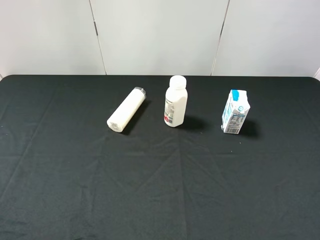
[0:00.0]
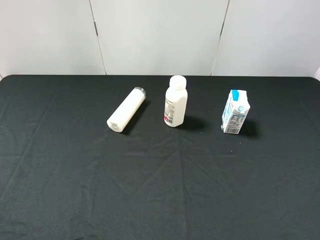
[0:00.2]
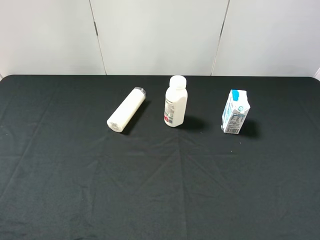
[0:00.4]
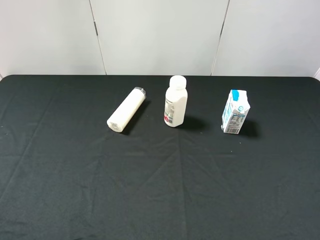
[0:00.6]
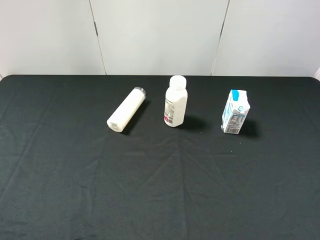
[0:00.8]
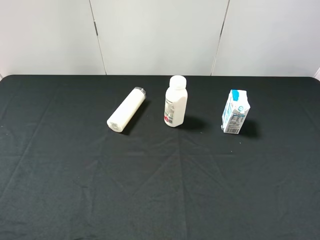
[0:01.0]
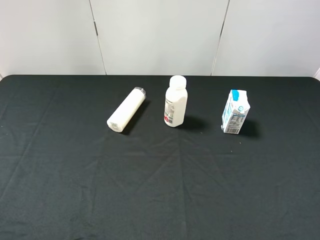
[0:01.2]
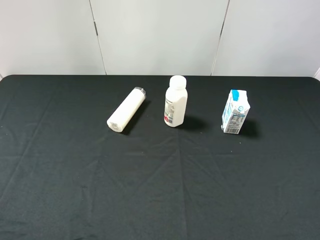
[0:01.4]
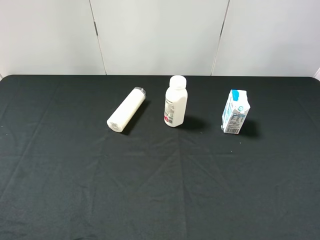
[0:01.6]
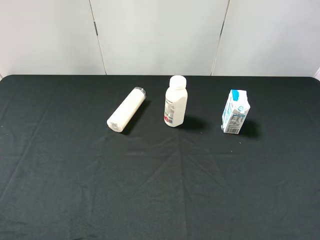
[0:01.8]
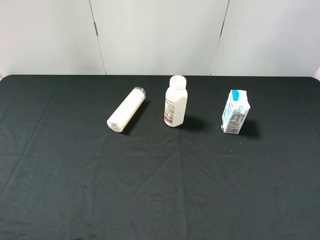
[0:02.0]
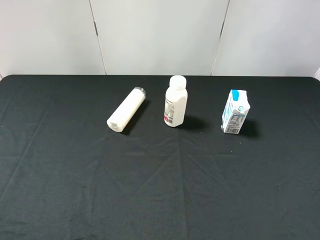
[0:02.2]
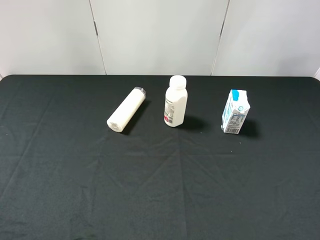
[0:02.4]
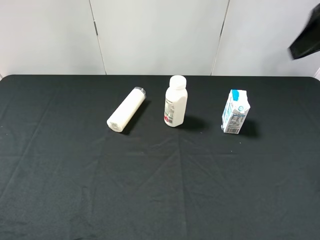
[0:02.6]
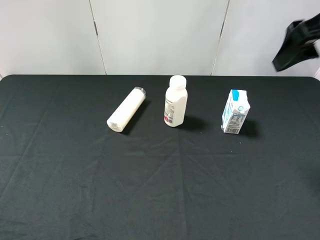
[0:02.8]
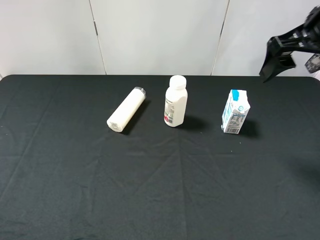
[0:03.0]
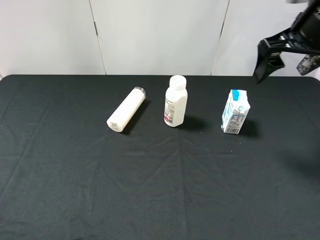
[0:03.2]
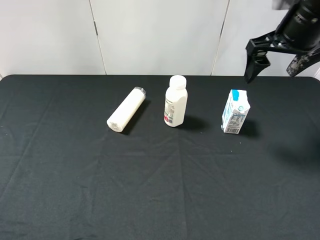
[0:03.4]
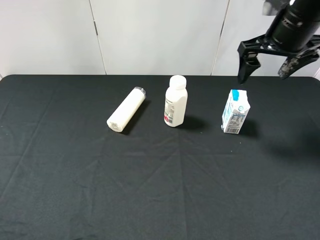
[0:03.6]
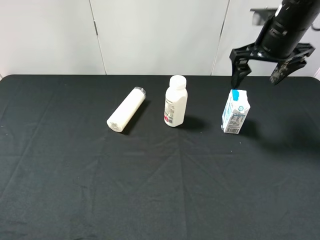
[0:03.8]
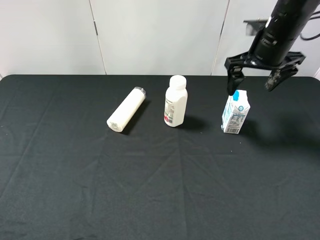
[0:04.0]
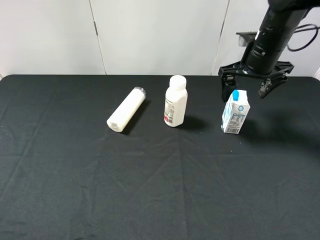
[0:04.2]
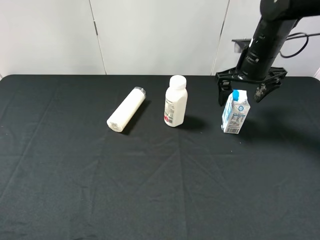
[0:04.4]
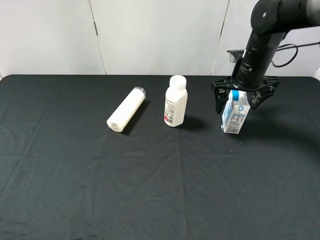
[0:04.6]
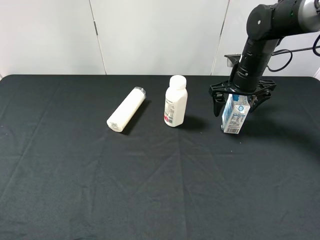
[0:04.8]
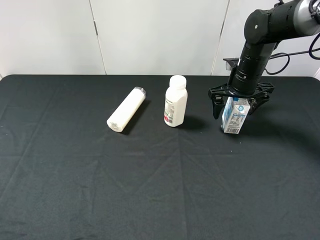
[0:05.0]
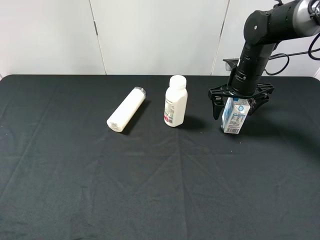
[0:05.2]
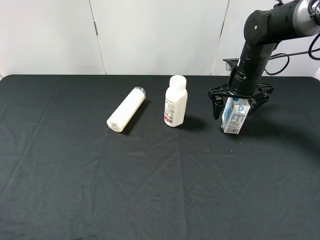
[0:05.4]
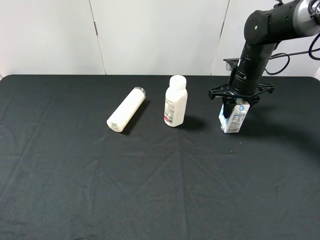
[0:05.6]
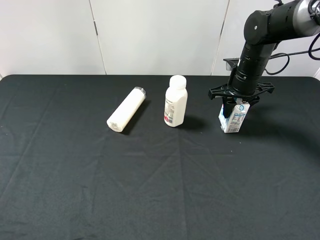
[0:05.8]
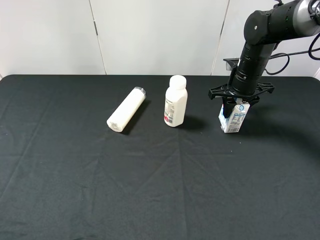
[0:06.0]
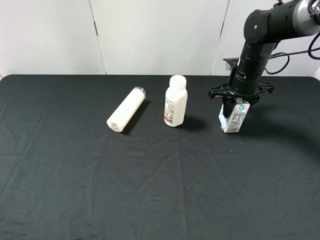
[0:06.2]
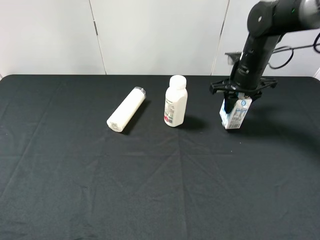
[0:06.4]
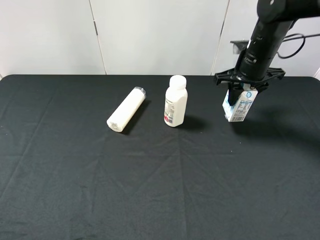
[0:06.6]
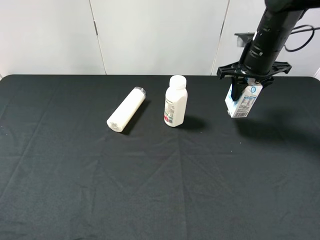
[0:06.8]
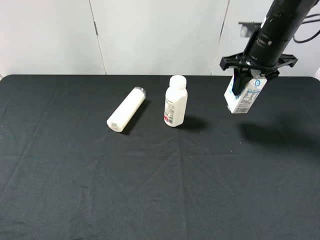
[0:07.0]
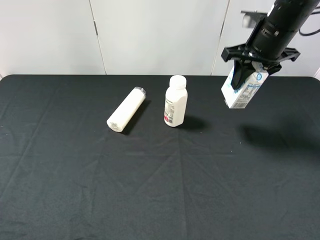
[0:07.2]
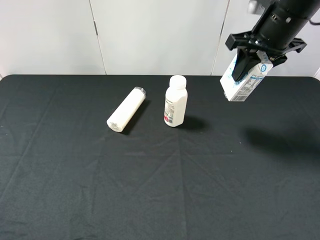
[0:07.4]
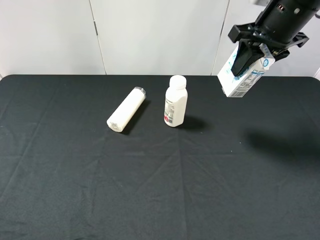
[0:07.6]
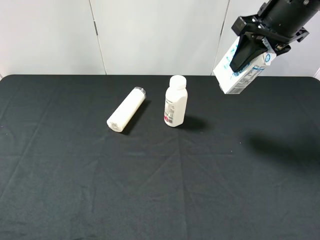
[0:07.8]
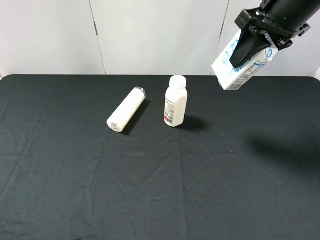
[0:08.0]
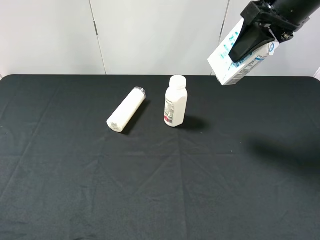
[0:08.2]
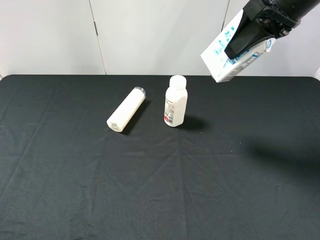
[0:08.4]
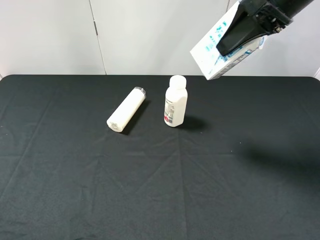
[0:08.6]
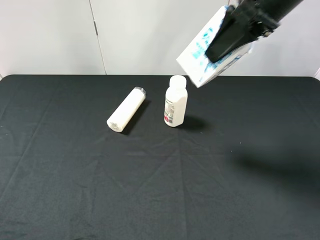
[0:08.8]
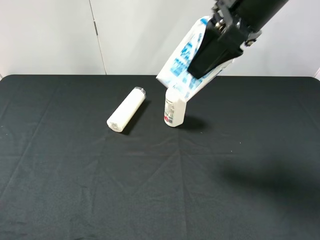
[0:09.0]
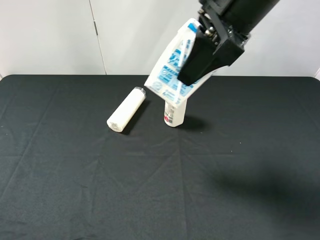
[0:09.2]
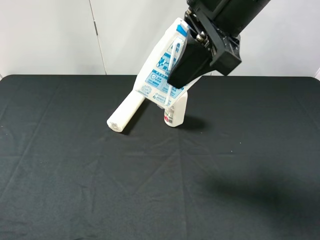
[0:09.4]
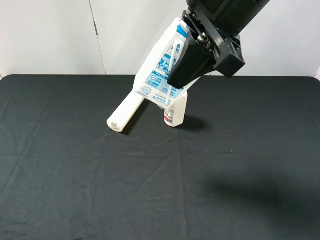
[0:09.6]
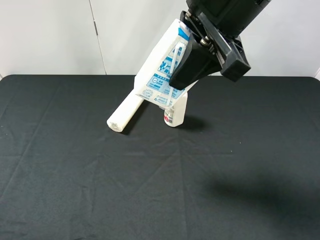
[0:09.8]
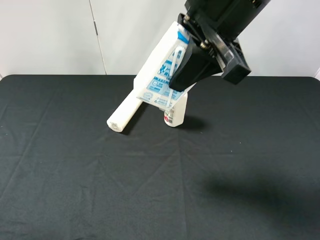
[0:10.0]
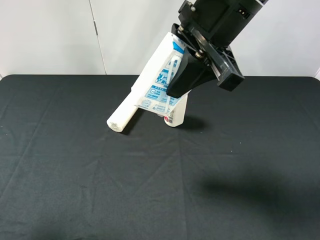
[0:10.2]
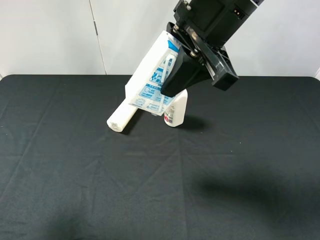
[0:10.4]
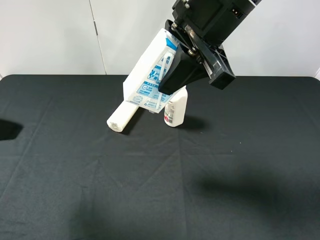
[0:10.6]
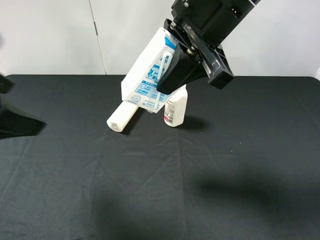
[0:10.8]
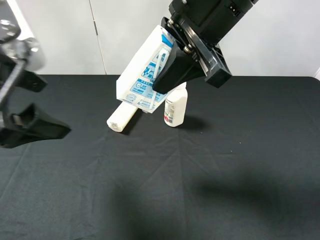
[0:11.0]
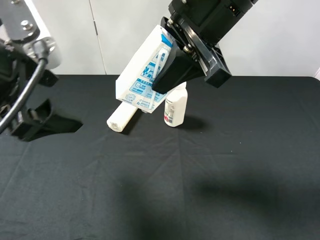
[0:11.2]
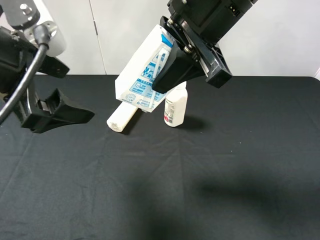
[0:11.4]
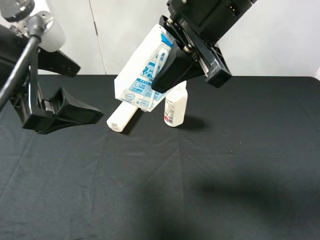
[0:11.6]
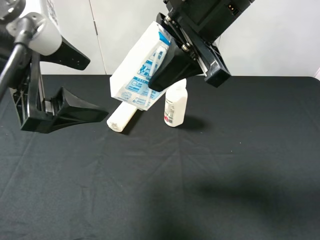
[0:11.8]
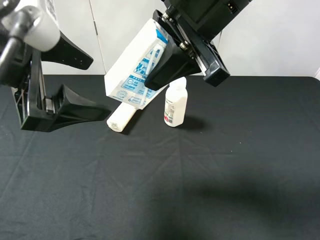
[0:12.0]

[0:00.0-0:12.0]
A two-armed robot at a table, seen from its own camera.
Task of the whole recording: use the right gripper to pick up the item and transfer it from the right gripper to the left gripper.
Step, 0:00.0 to 0:05.8: Use the right gripper to grab the milk on the right side of the table.
0:01.6 to 0:03.0: The right gripper shifts approximately 25 cm forward.
0:03.0 to 0:04.4: The right gripper goes roughly 15 cm downward and forward.
0:04.4 to 0:06.0: The right gripper ends up roughly 5 cm from where it was, and closes up.
0:06.0 to 0:07.6: The right gripper goes approximately 15 cm upward and backward.
0:07.6 to 0:09.0: The right gripper moves to the left and backward, some 10 cm.
0:09.0 to 0:10.4: The left gripper goes about 10 cm forward.
0:10.4 to 0:12.0: The left gripper is displaced to the right and forward by about 10 cm.

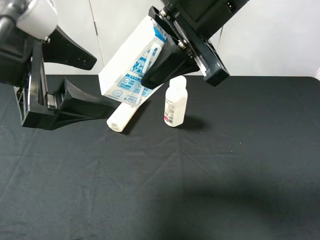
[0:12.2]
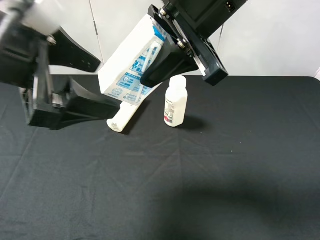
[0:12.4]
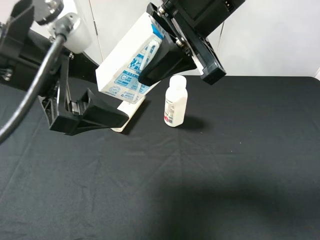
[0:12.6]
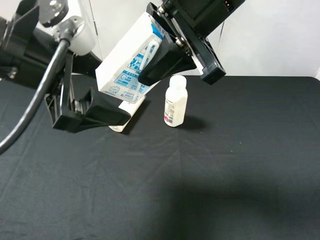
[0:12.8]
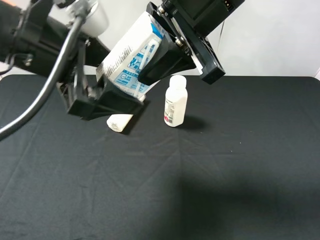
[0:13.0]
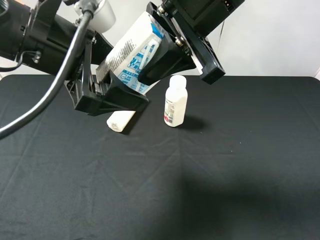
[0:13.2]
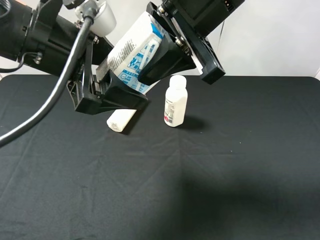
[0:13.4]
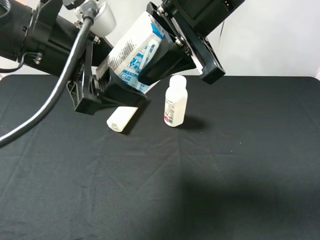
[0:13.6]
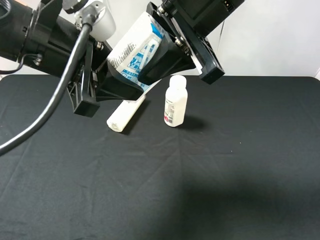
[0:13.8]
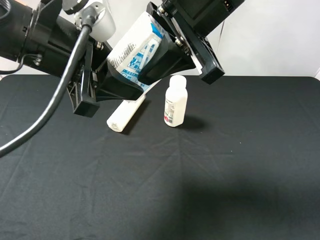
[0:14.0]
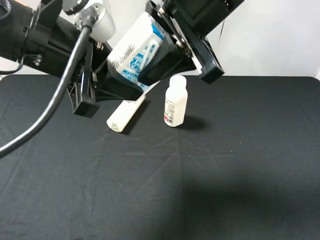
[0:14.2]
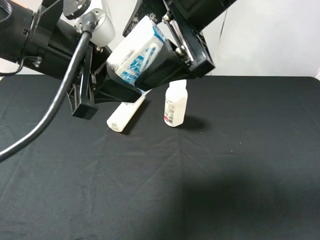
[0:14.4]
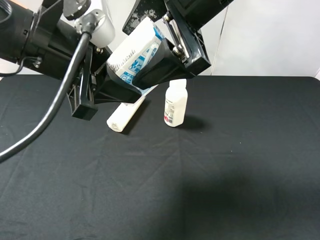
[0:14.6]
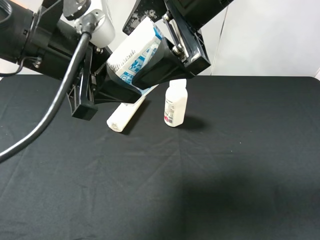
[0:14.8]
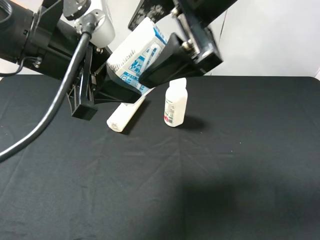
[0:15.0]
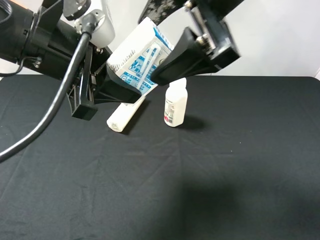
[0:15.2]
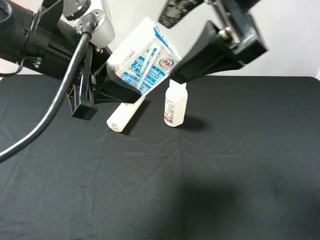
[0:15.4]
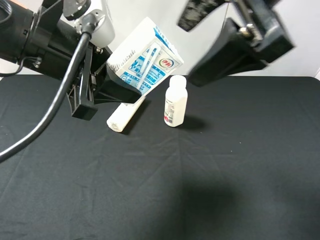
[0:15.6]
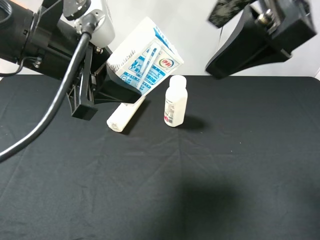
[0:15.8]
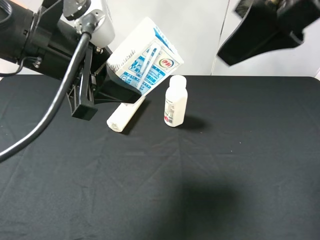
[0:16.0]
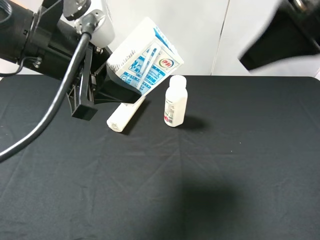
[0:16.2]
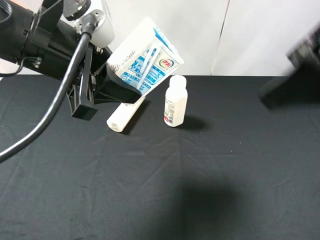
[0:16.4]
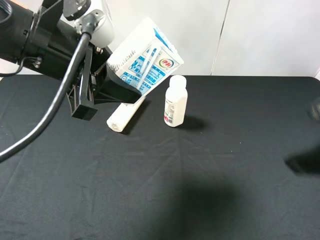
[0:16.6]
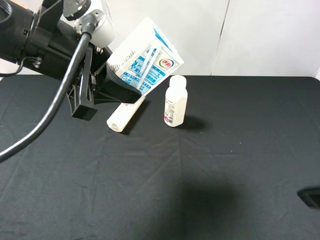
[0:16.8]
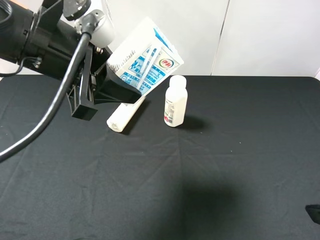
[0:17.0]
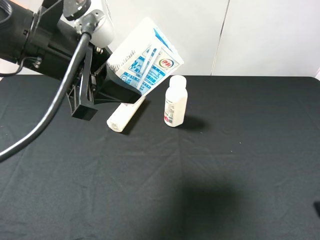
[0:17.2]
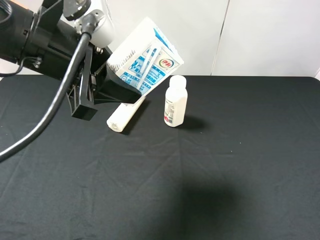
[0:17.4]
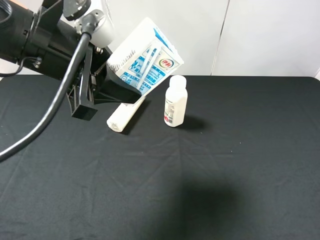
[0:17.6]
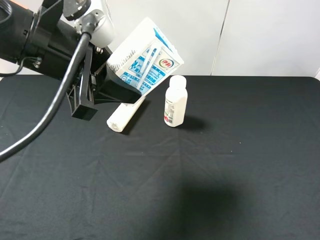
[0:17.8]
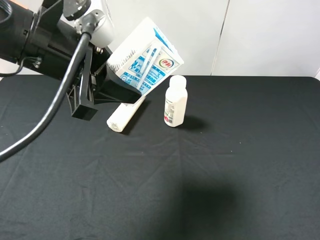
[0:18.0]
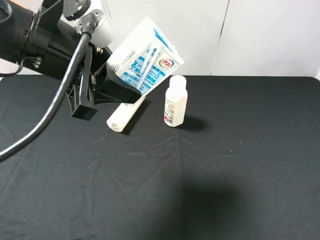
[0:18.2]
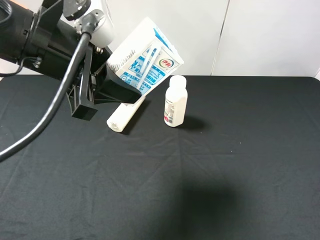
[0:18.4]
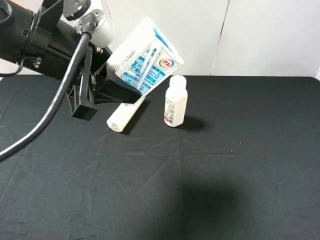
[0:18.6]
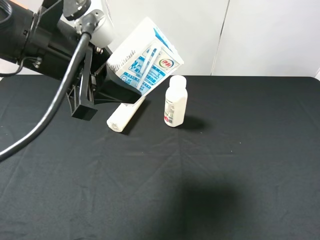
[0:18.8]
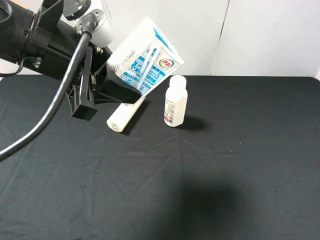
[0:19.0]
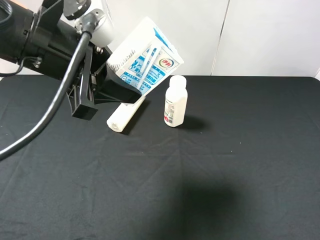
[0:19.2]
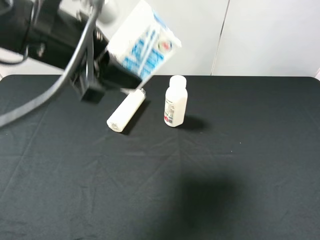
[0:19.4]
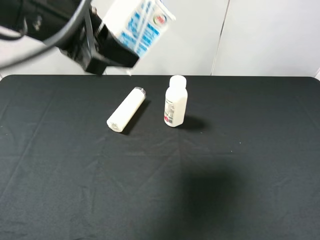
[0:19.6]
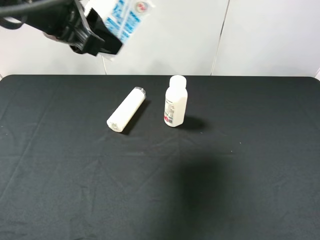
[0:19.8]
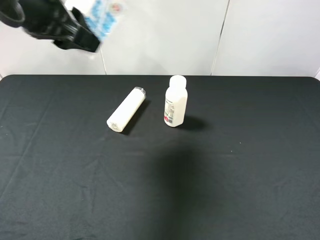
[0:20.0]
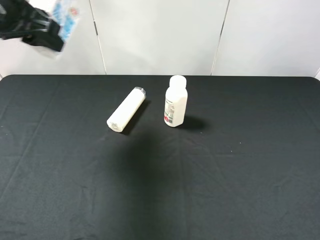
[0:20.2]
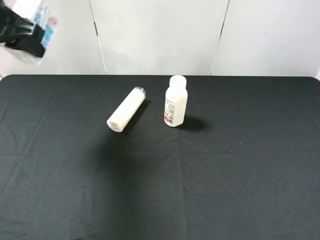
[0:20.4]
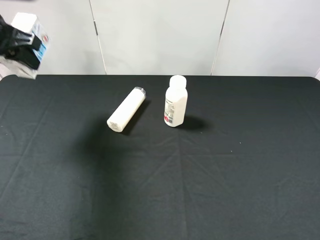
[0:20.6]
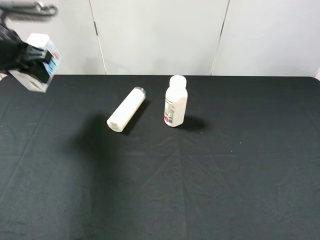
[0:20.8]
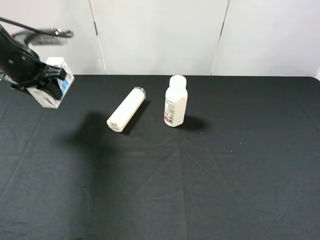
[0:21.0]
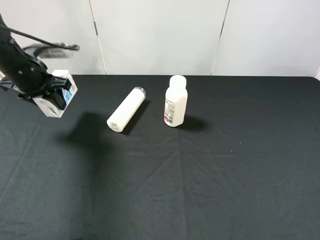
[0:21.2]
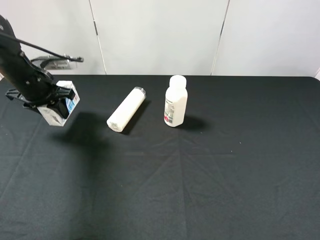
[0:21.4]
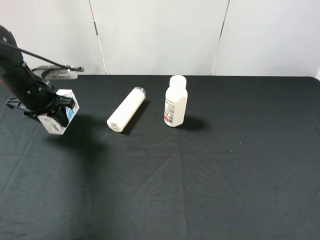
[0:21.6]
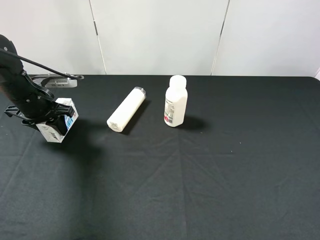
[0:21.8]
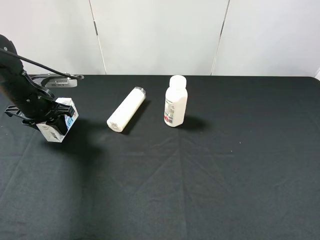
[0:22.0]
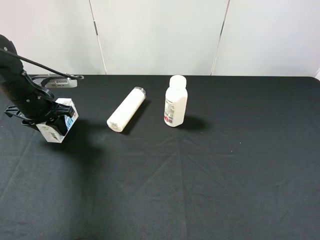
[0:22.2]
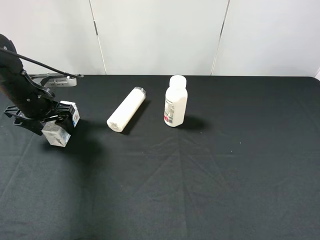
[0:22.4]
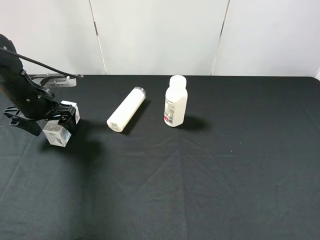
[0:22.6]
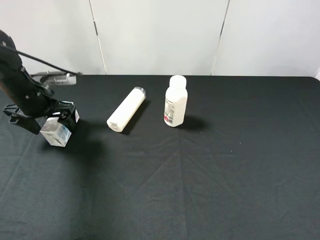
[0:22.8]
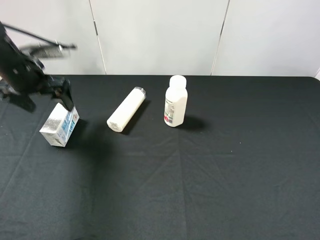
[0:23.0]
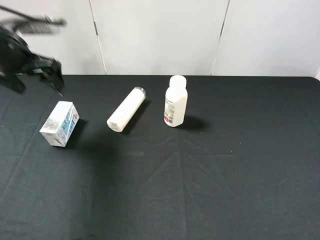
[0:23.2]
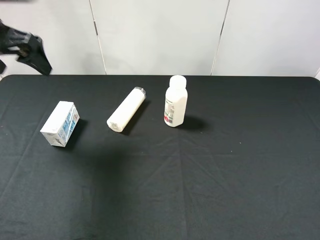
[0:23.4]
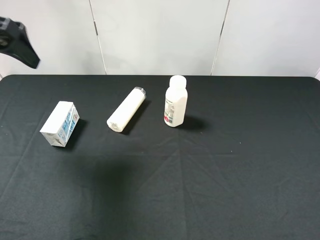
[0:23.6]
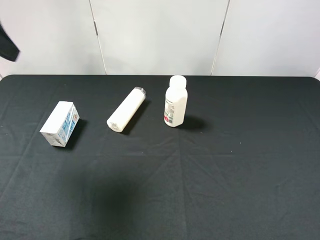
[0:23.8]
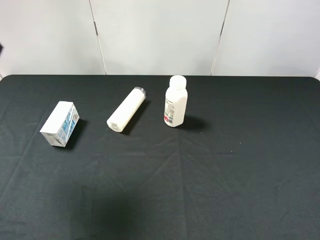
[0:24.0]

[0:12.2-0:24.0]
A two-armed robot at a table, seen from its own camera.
Task of the whole recording: use the right gripper to pick up the item and transfer it from the right gripper to the left gripper.
Step, 0:12.2 to 0:14.8: Pass the milk to the left gripper.
Step, 0:15.0 to 0:22.4: The left gripper places milk on the left side of the table.
0:12.2 to 0:13.6: The left gripper changes place by about 5 cm, and closes up.
0:13.6 to 0:15.2: The right gripper opens up.
0:15.2 to 0:16.6: The right gripper travels to the right, backward and downward by approximately 20 cm.
0:16.6 to 0:18.2: The right gripper goes some 10 cm backward and to the right.
0:19.6 to 0:21.0: The left gripper goes about 20 cm to the left, downward and forward.
0:21.0 to 0:22.6: The left gripper heads downward, covering some 10 cm, and opens up.
0:22.6 to 0:24.0: The left gripper goes approximately 30 cm upward and backward.
